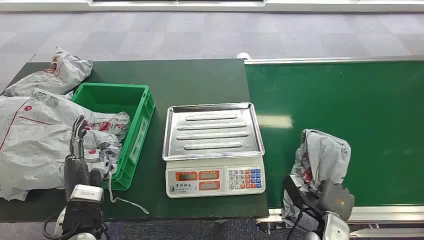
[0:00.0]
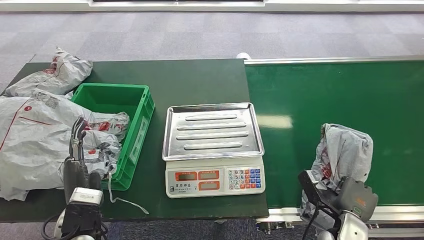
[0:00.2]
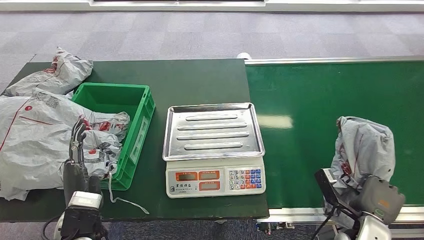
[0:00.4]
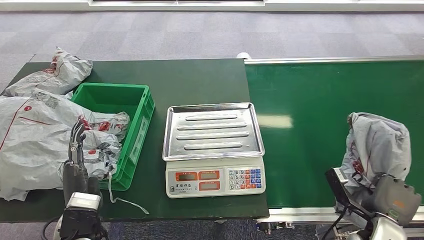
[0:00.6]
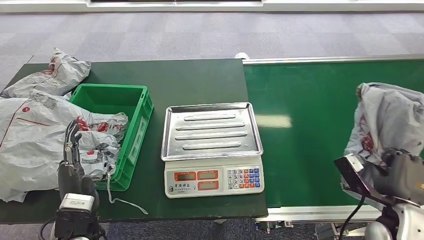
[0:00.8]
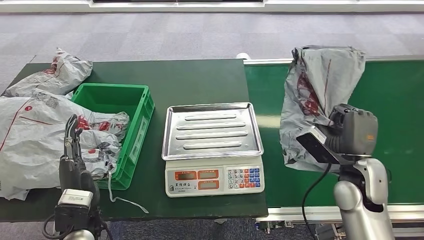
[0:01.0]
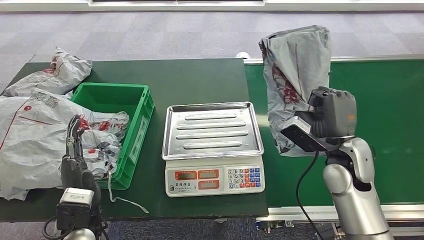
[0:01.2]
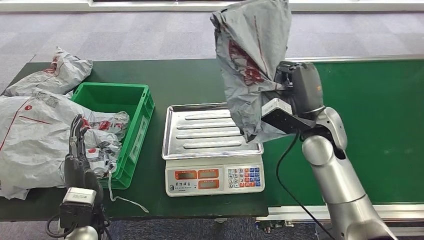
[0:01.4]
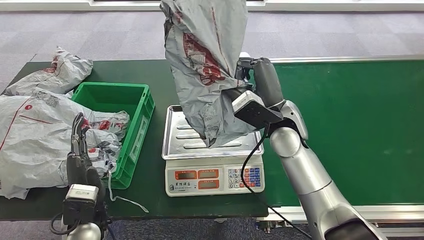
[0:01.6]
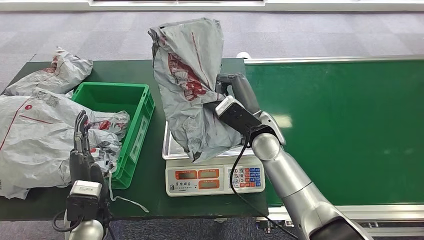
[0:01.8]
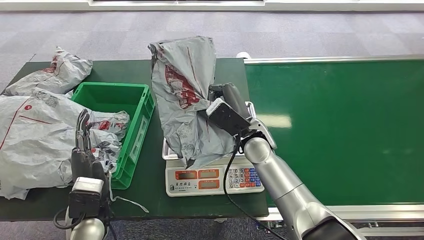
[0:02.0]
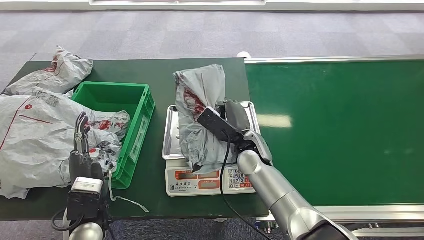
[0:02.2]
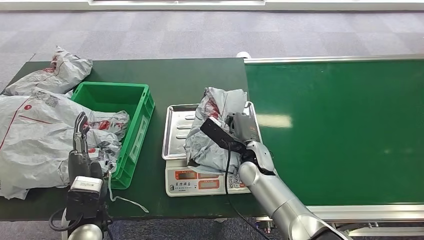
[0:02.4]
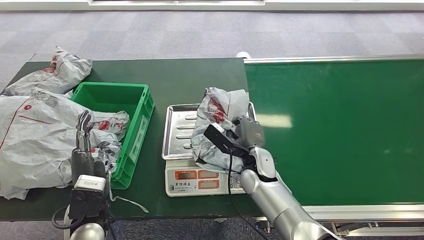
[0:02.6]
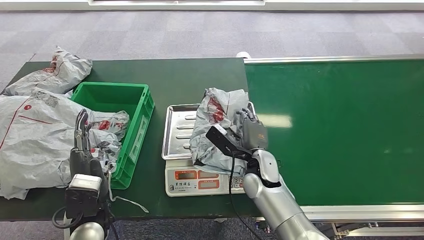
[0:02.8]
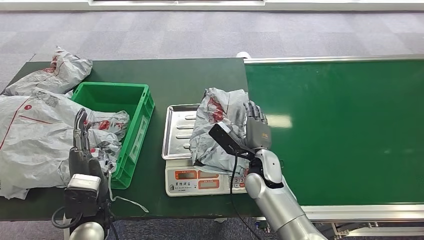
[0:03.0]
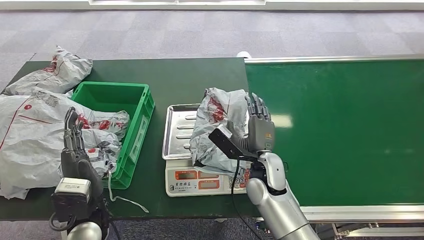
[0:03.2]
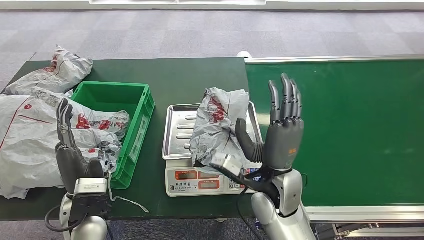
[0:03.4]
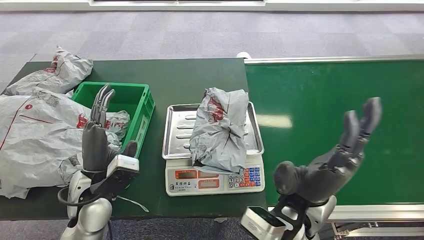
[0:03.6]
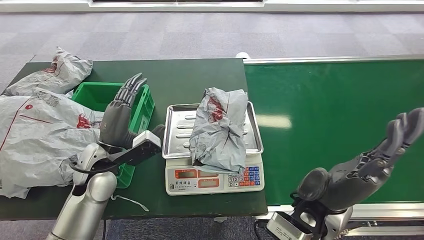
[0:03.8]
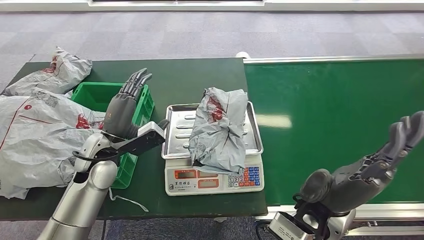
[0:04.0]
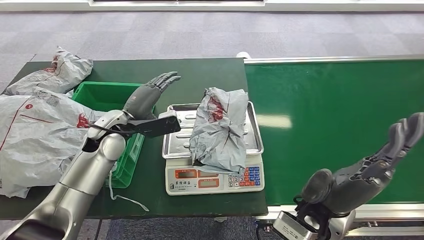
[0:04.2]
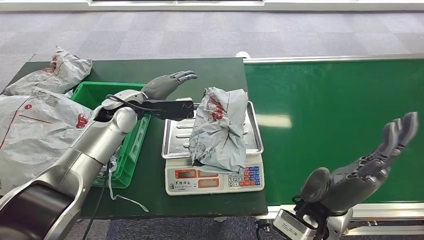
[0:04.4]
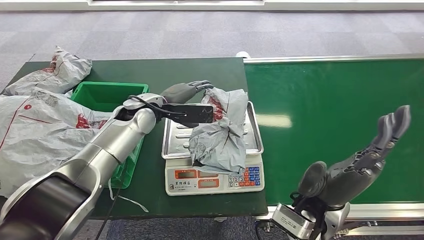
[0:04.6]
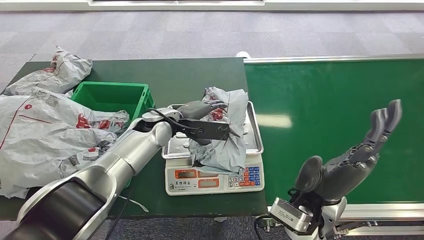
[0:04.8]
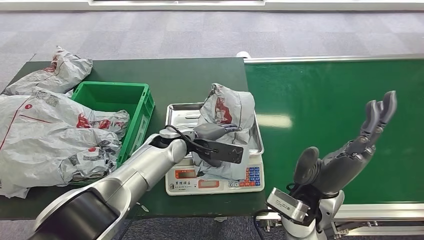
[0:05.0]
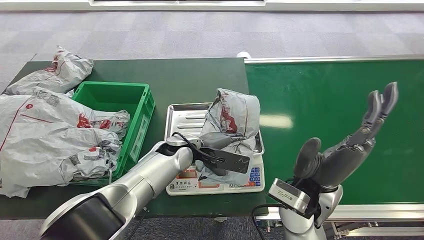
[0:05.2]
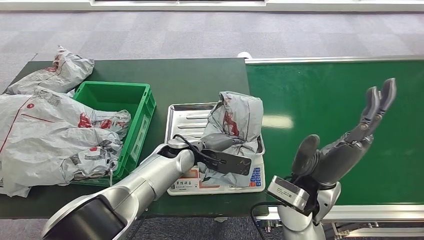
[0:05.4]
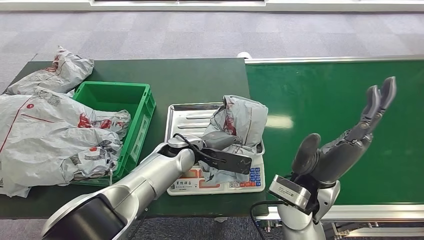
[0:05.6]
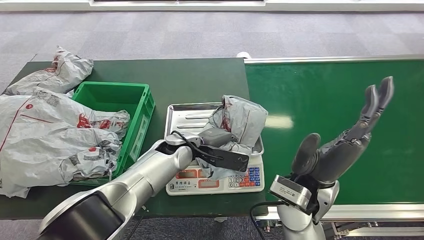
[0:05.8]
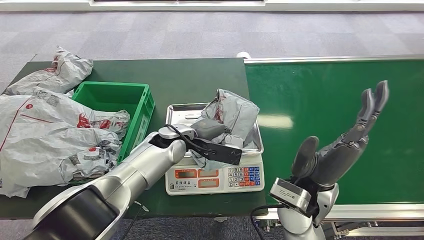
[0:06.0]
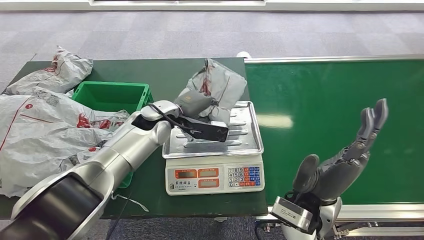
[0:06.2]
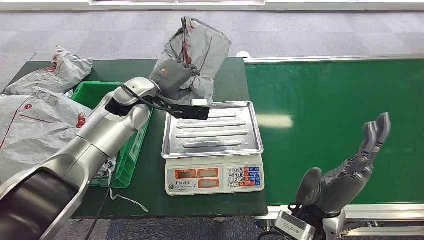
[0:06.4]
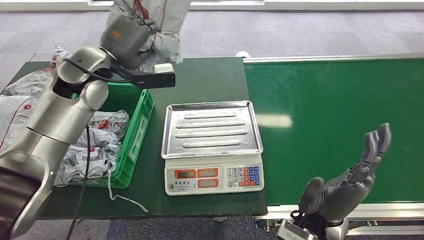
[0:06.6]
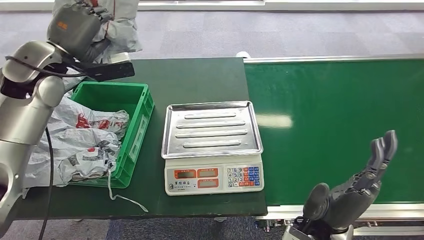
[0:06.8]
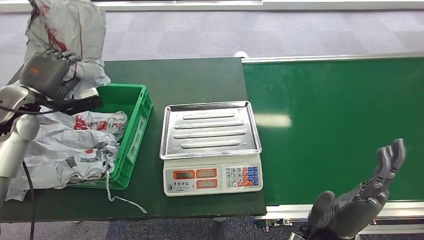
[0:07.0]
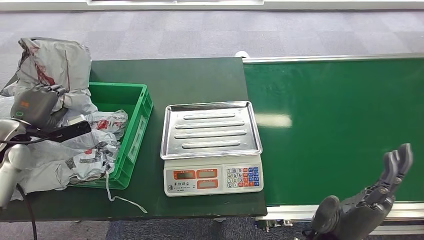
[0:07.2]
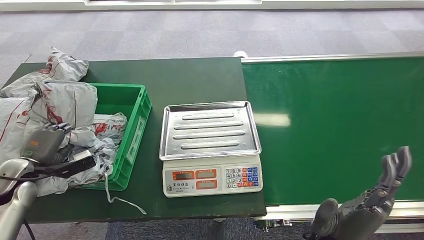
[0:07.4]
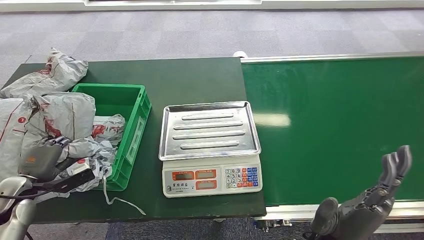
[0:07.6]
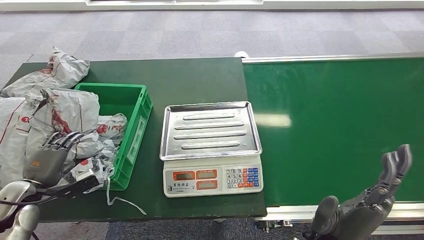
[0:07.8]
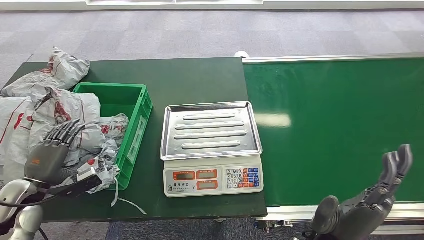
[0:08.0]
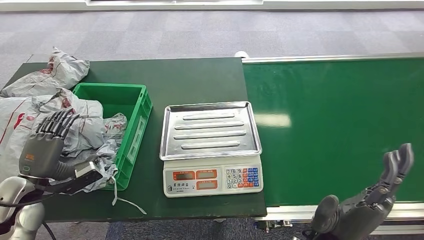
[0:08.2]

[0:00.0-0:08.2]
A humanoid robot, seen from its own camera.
Step, 0:00.0 to 0:01.4: Pick up the package from the conveyor belt.
Step, 0:01.6 to 0:03.2: Place the package onto the inbound machine.
Step, 0:03.4 to 0:06.2: Pick up the package from the inbound machine.
Step, 0:06.4 to 0:08.2: Place the package into the parcel locker.
